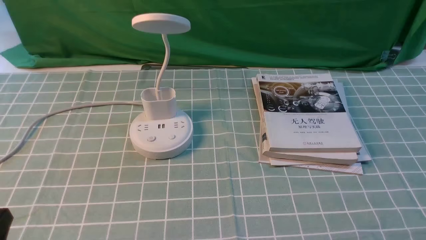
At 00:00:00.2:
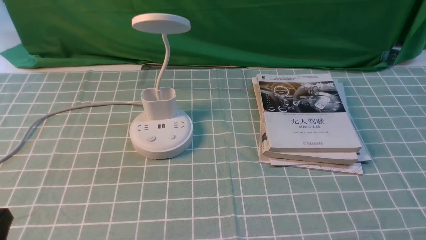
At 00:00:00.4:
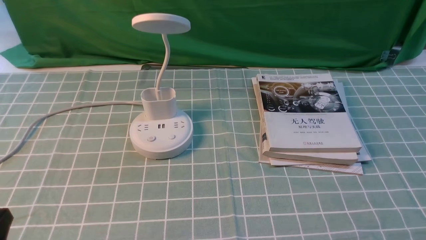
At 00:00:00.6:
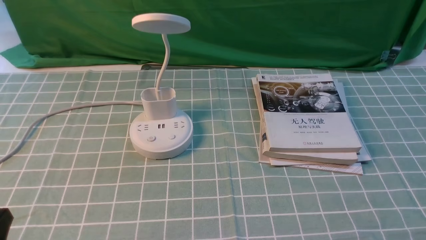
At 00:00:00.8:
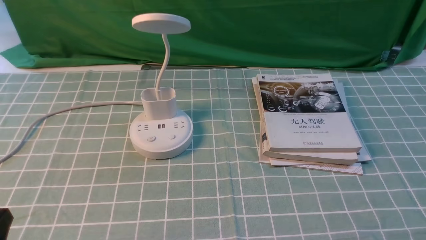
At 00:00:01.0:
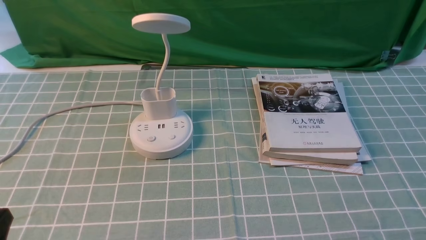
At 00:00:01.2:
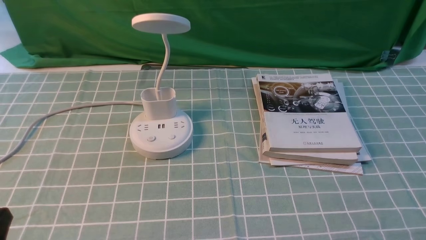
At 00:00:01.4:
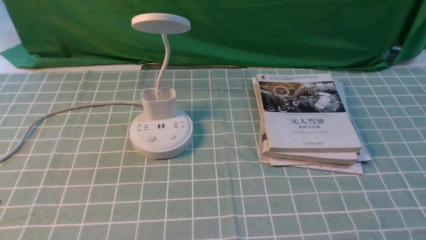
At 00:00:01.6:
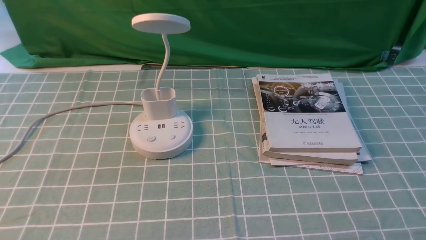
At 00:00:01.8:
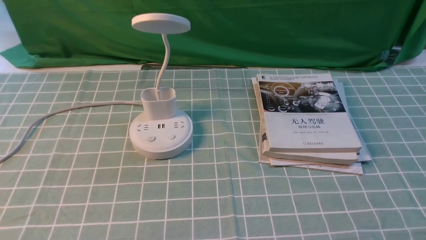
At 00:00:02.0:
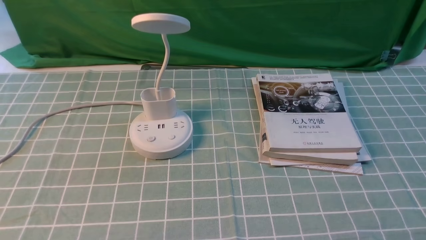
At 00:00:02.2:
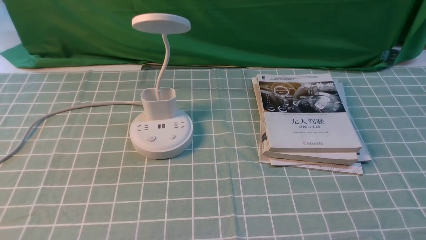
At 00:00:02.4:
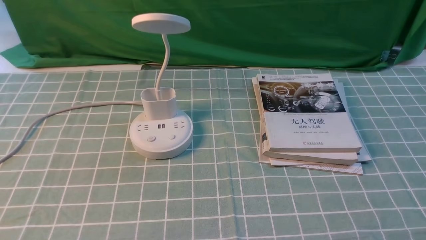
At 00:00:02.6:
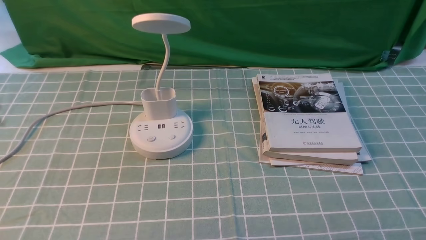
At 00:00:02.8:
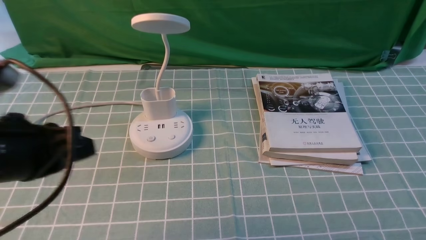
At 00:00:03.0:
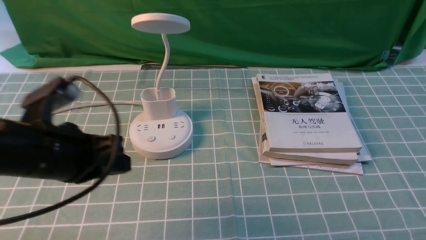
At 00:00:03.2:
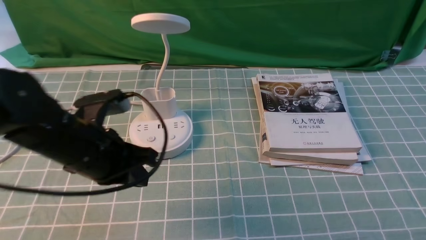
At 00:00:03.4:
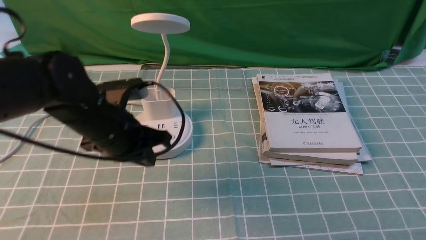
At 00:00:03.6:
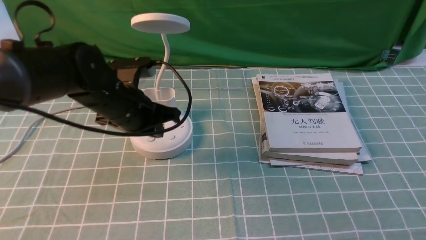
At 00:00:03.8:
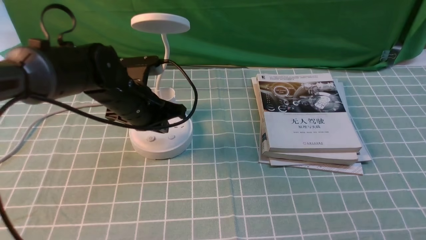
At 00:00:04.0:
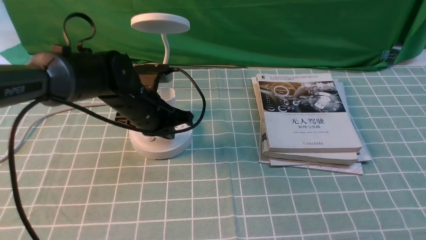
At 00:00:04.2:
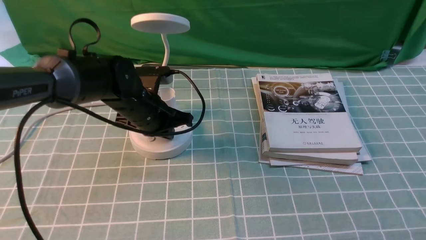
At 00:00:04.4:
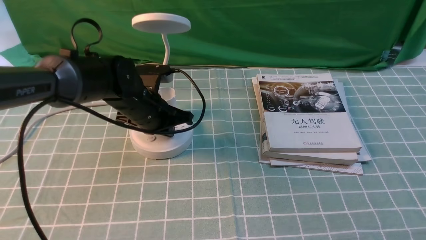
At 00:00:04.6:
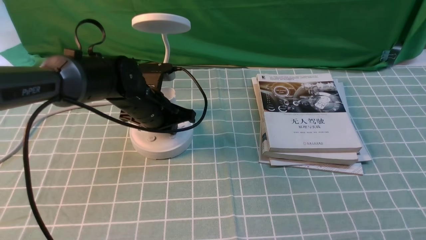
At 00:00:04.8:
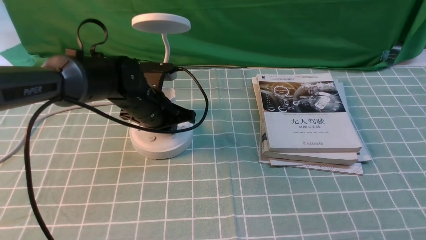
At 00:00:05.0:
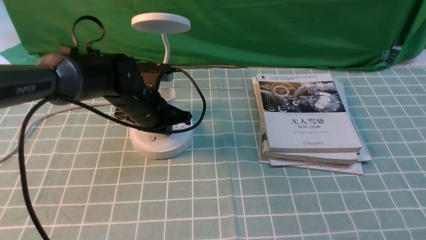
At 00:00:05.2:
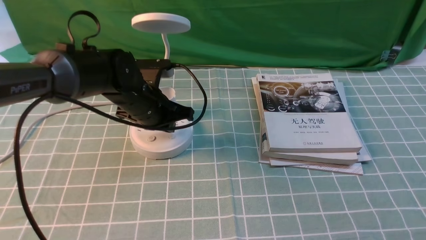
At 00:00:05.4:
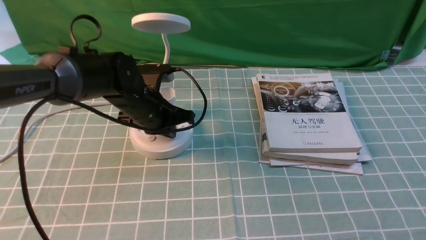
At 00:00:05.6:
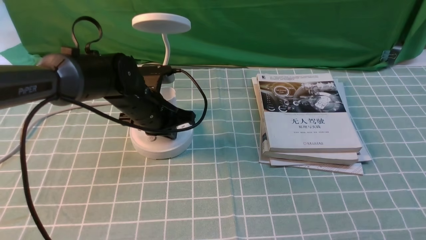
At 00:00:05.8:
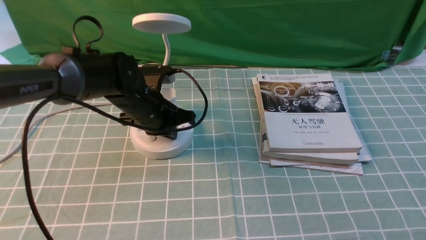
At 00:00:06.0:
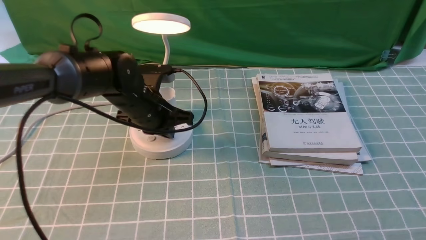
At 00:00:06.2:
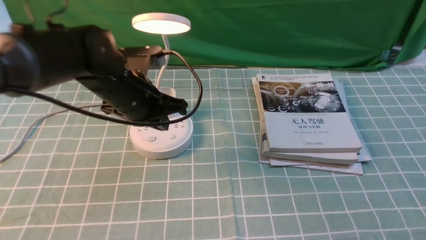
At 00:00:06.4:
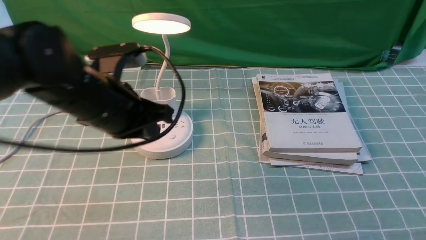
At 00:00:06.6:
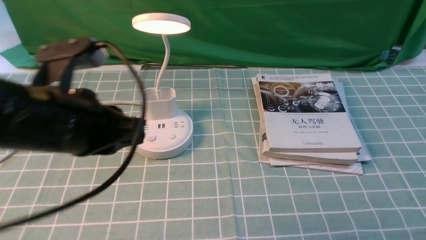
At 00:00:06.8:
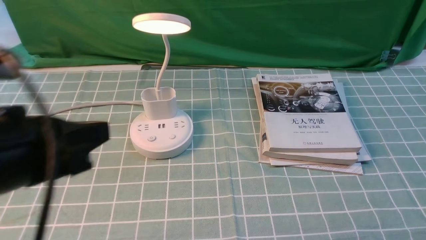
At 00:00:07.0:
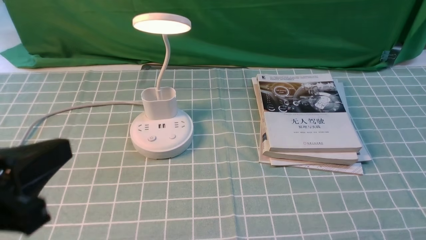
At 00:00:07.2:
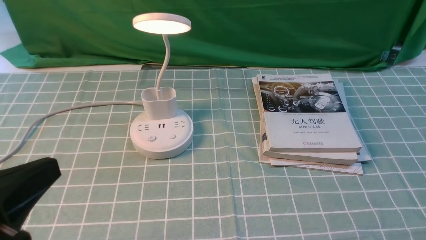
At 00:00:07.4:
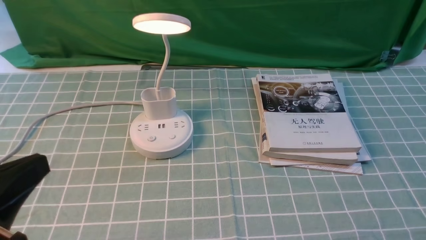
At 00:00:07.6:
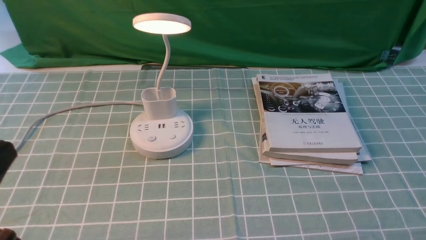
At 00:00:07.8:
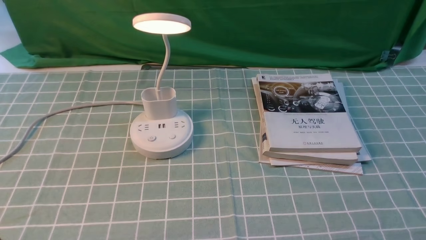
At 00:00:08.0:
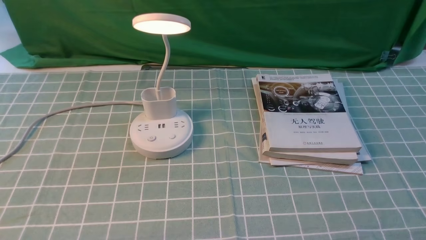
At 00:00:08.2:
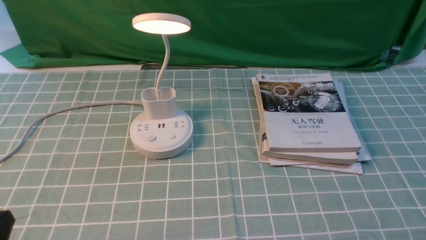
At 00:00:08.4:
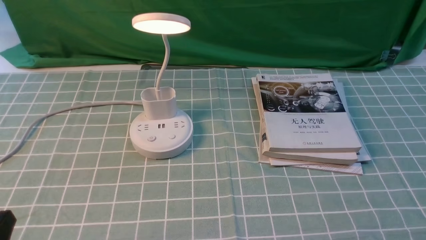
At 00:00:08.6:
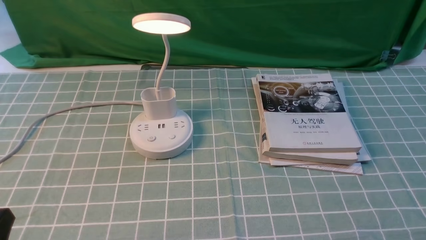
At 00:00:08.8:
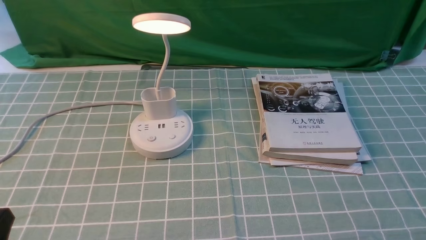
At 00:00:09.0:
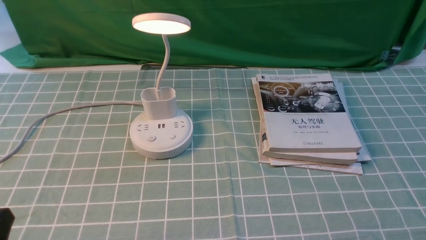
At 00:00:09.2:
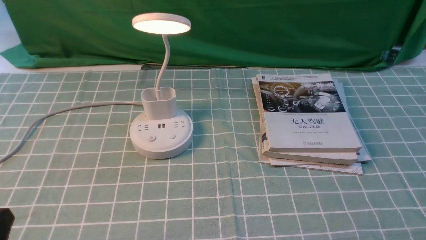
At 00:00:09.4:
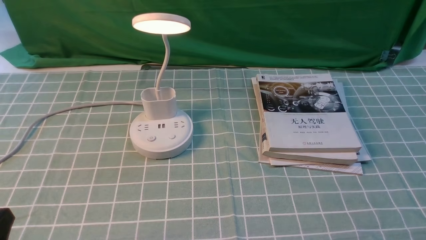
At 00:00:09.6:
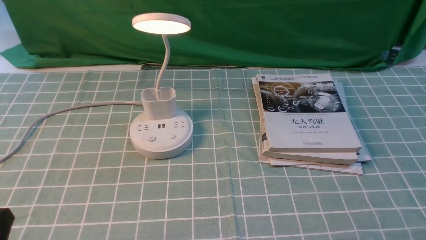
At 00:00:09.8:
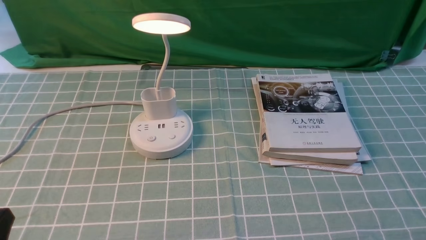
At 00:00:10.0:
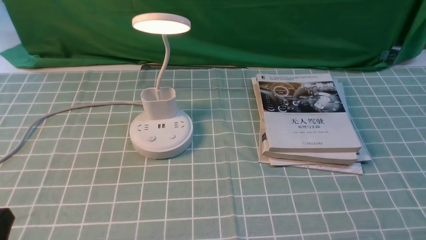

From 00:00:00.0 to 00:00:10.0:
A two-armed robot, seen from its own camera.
Step, from 00:00:00.0 to 00:00:06.2: use the left arm to press the button switch on the lamp holder.
From 00:00:01.4 to 00:00:02.8: The left gripper is displaced forward and upward by about 15 cm.
From 00:00:02.8 to 00:00:04.2: The left gripper heads forward, downward and to the right, covering about 25 cm.
From 00:00:04.2 to 00:00:05.8: Both grippers stay put.
From 00:00:05.8 to 00:00:07.2: The left gripper shifts roughly 35 cm backward and upward.
From 00:00:07.2 to 00:00:08.6: The left gripper travels downward by about 10 cm.
From 00:00:08.6 to 00:00:10.0: Both grippers stay put.
